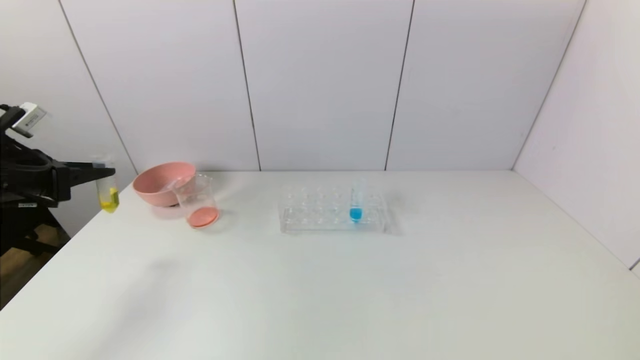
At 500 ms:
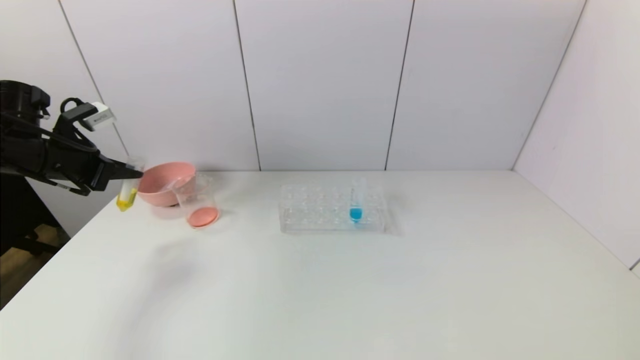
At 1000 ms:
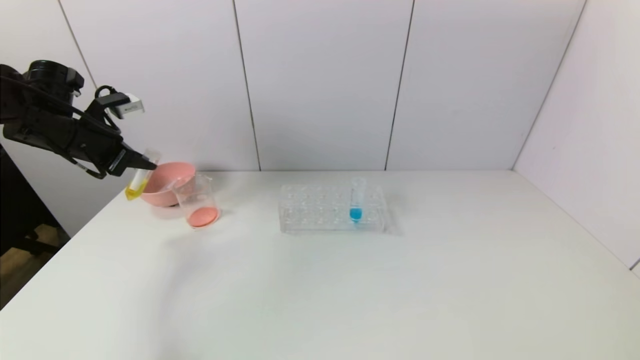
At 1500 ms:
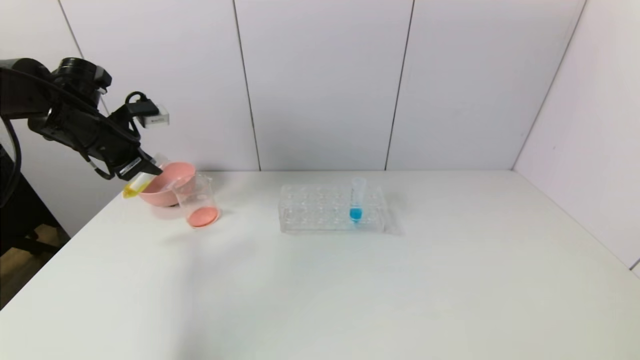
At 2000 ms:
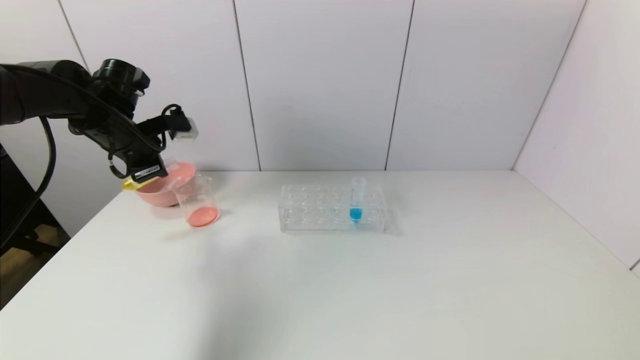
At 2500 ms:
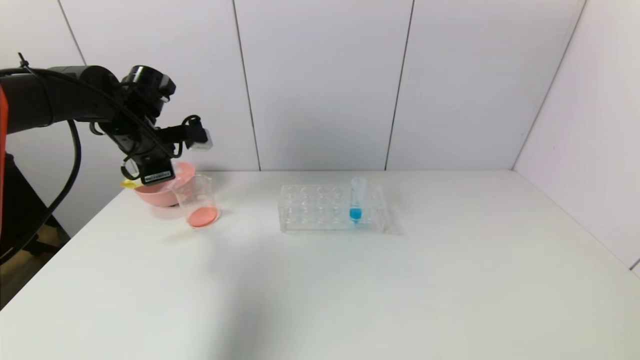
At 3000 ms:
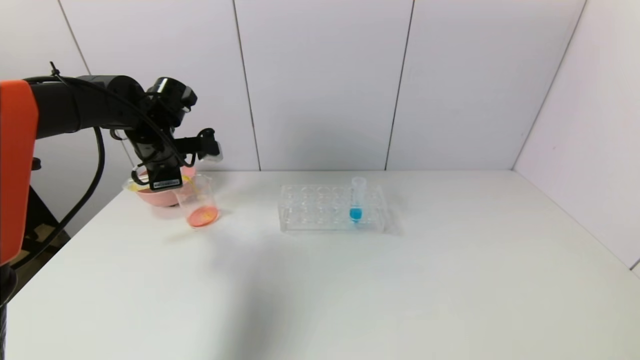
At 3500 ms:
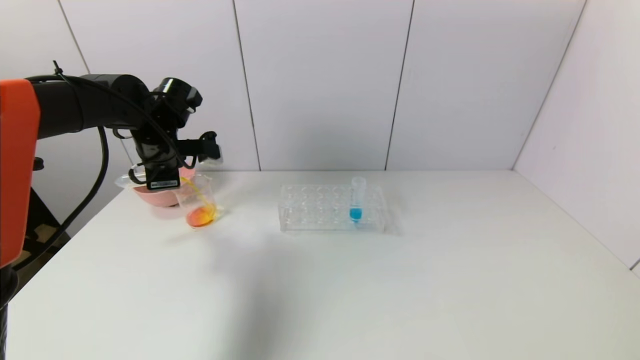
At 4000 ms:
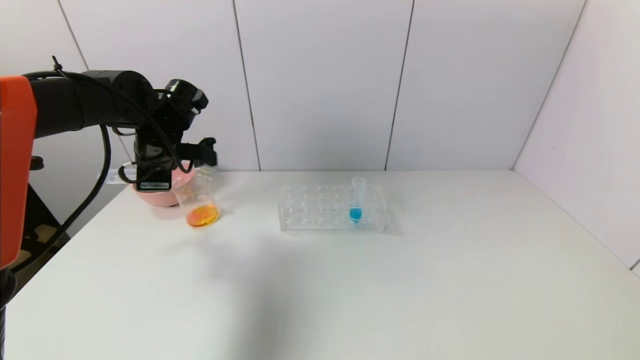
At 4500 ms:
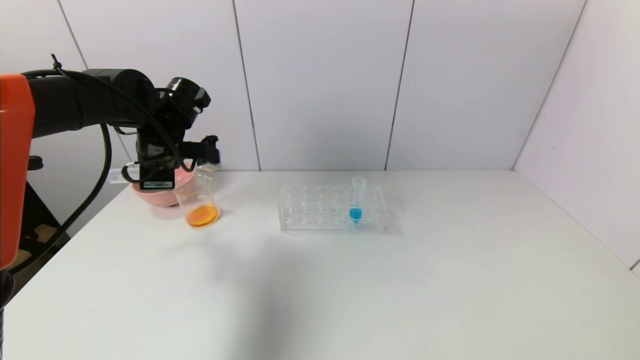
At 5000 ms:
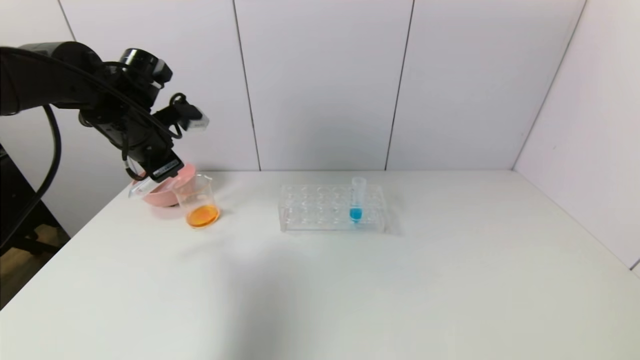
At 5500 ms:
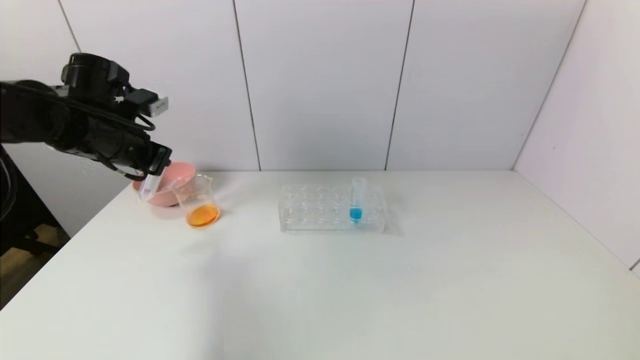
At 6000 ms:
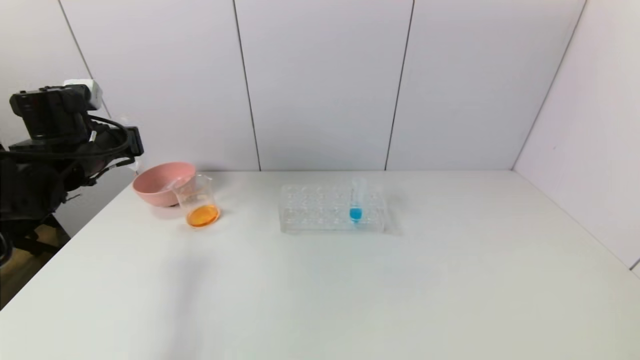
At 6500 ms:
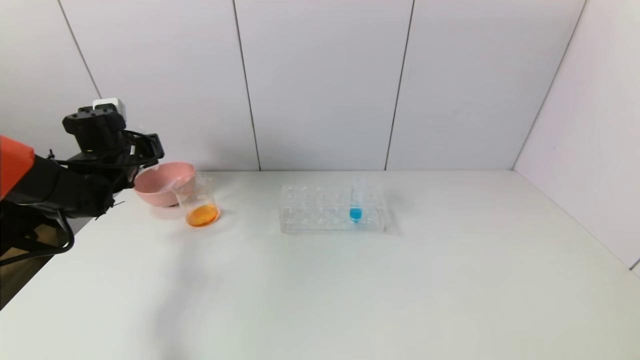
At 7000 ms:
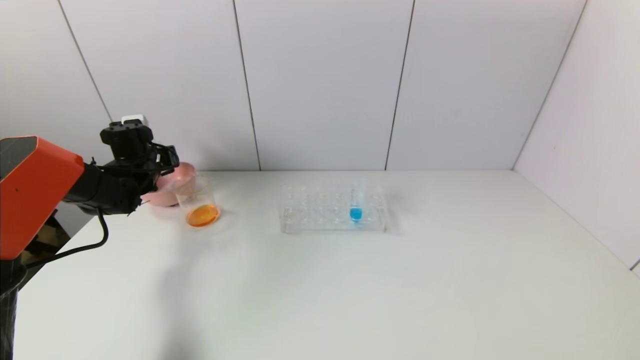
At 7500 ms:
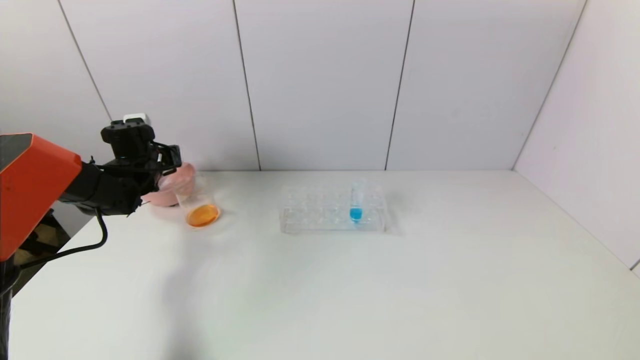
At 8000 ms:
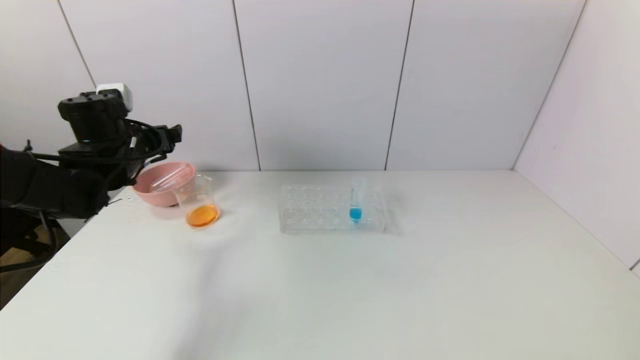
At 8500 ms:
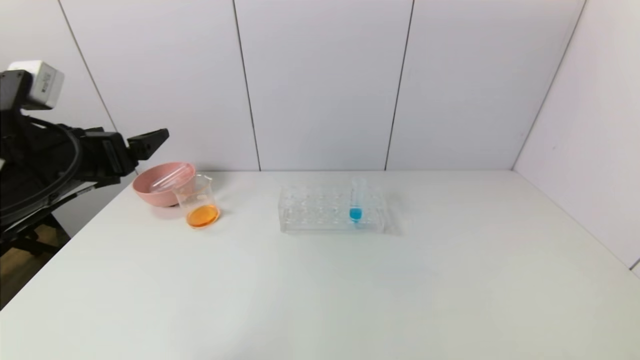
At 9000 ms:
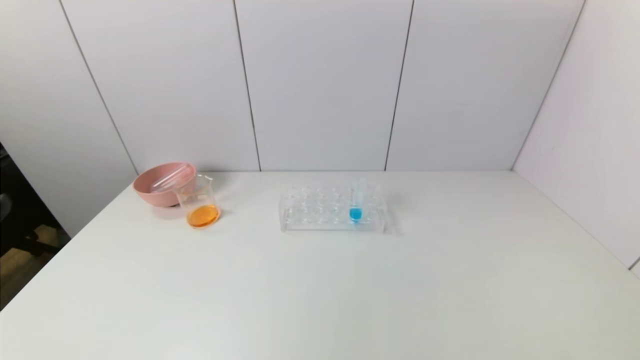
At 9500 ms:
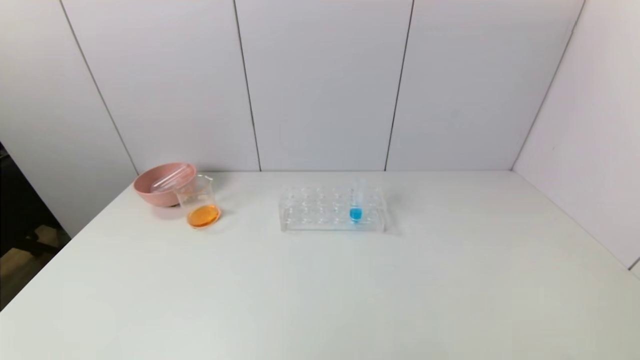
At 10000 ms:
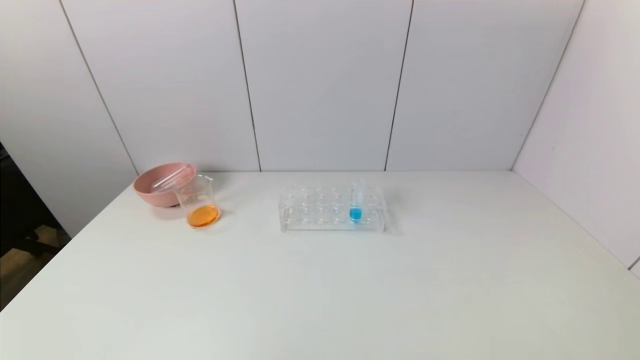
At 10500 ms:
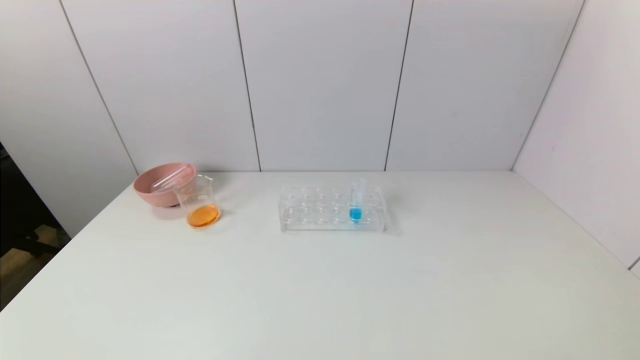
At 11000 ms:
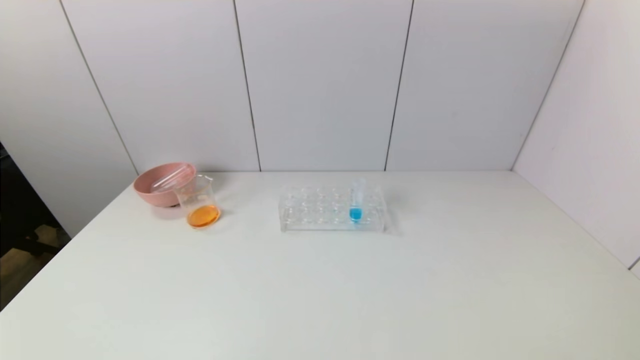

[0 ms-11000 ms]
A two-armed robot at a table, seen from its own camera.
Task of the whole recording: pick up the test tube with yellow pigment and the test tube with red pigment by grippers and pour them into the beaker.
Step, 0 ms to 4000 ms: Pour the yellow reagent into the graduated cylinder with the left gripper.
Step, 4500 ms to 7500 ms: Place the test tube into the pink bowl with the left gripper.
0 ms to 2000 ms: The left gripper travels to the right and forward by approximately 15 cm.
2000 ms to 3500 ms: The left gripper shifts about 5 cm to the right.
3500 ms to 5500 ms: The left gripper is displaced backward by roughly 5 cm.
5500 ms to 7500 ms: The left gripper shifts some 15 cm downward and forward, and opens its fingers.
7500 ms to 9000 ms: The left gripper moves backward, approximately 40 cm, and opens up.
